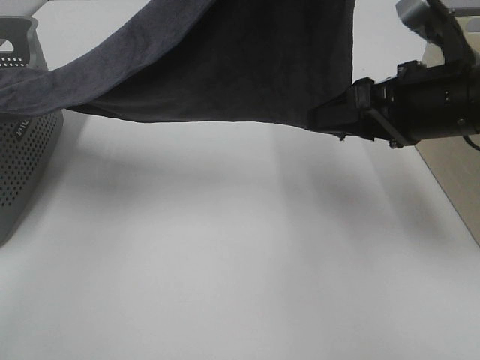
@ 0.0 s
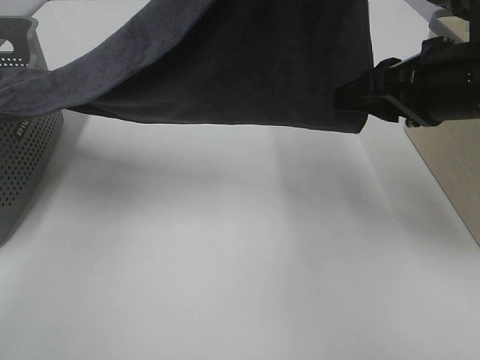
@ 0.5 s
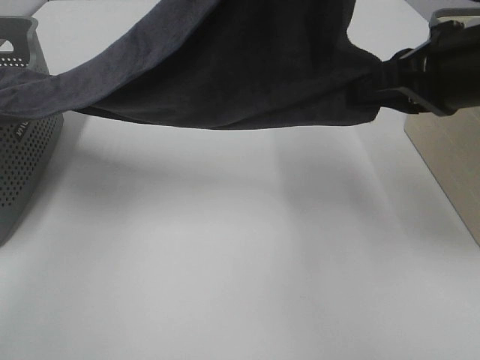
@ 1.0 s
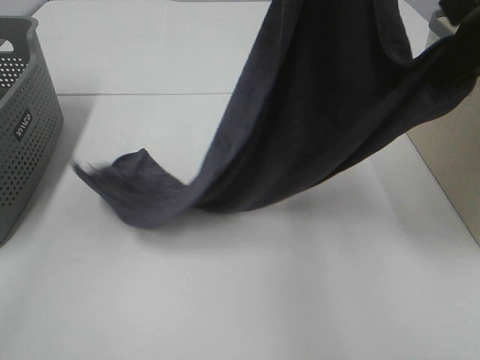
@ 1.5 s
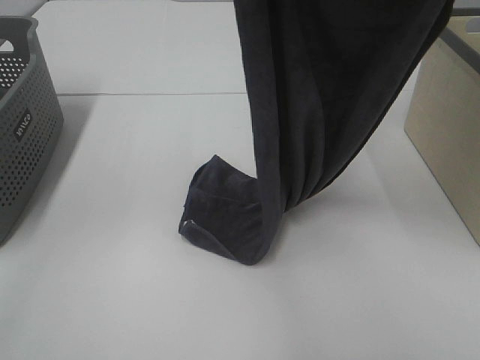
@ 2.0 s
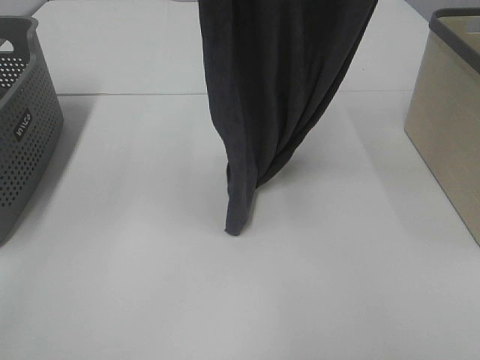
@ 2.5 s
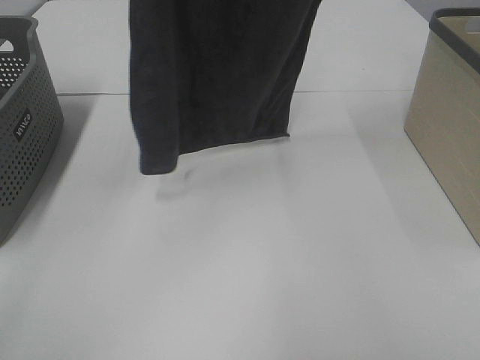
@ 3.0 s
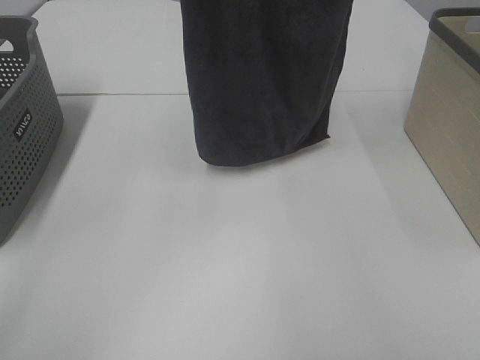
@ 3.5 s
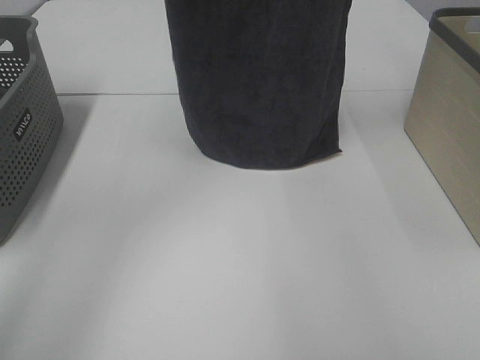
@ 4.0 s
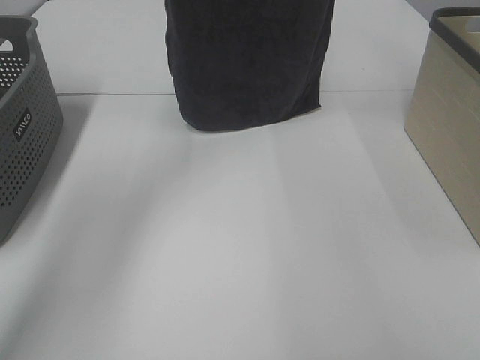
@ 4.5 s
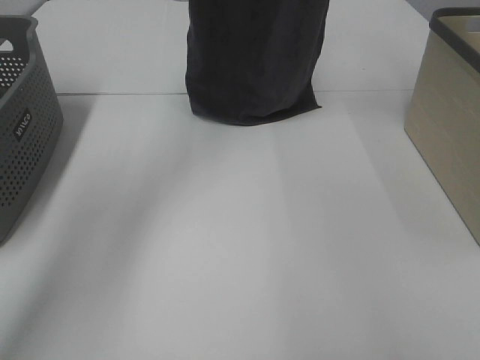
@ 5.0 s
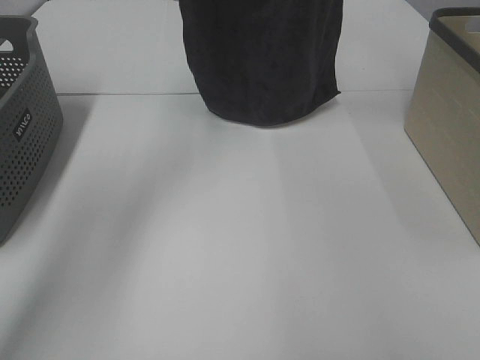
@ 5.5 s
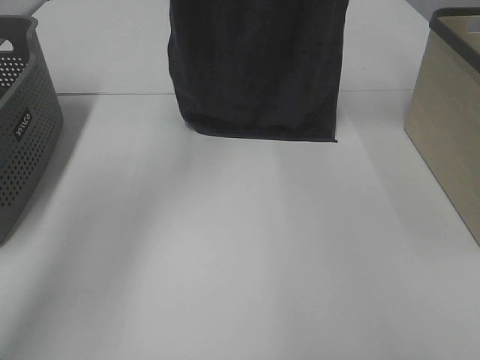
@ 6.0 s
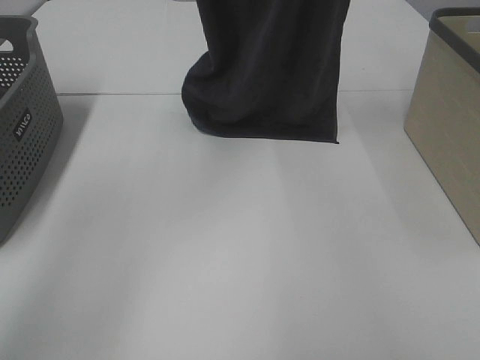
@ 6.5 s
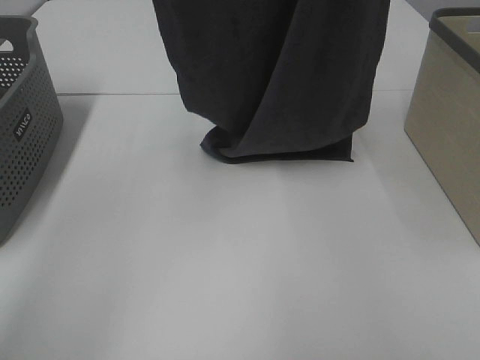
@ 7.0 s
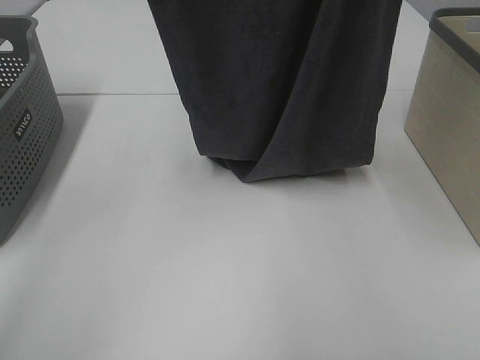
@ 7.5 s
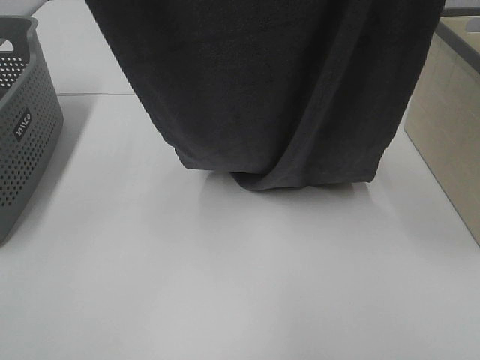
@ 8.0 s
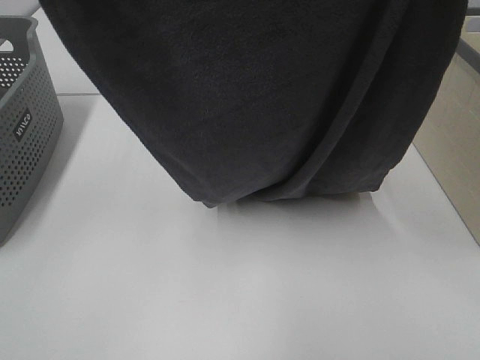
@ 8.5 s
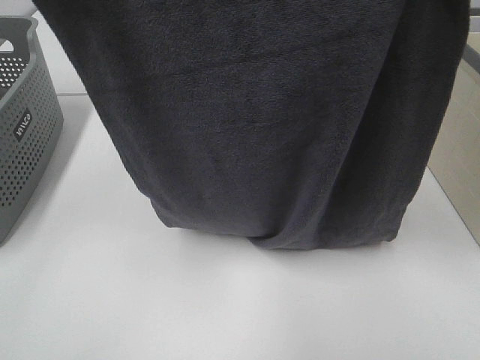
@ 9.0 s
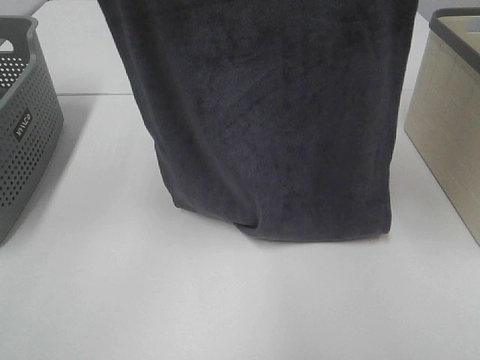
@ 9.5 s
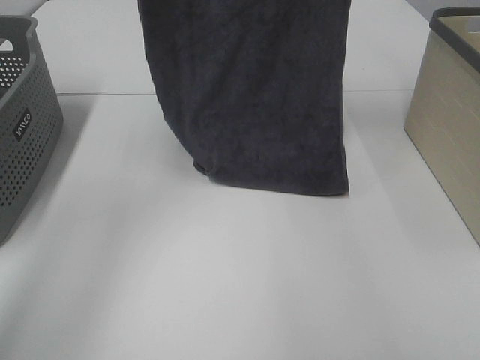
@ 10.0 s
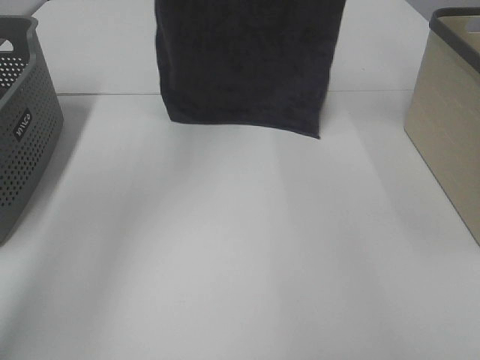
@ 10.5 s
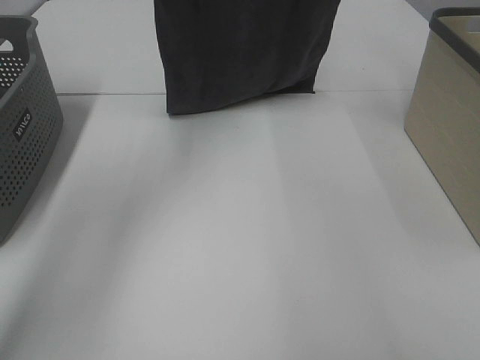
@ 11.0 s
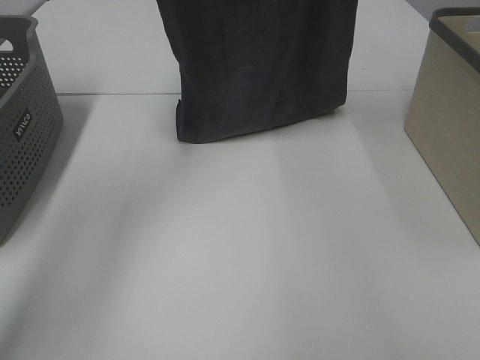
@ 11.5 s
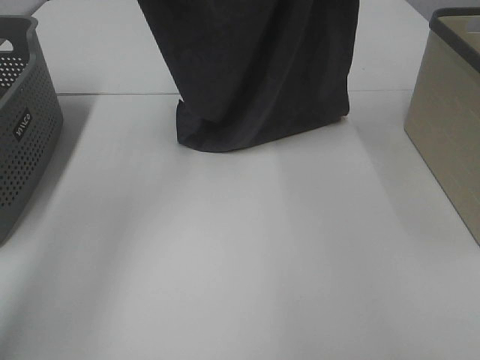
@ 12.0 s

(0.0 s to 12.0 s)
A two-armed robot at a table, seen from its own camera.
Task of the whole recording: Remove the towel and place it.
Step, 0.0 s - 11.0 s: Left hand: spread the grey towel flat on the table.
Step, 0.0 s - 11.0 s: Right hand: spread the grey towel flat on the table.
0.0 s - 2.0 s: The right gripper goes roughly 25 cm upward, and closes its fingers.
2.0 s - 4.0 s: The left gripper is displaced forward and to the left by approximately 15 cm. The right gripper travels forward and upward by about 15 cm.
4.0 s - 6.0 s: The left gripper travels forward by roughly 10 cm.
6.0 s - 8.0 s: The two grippers go roughly 20 cm backward.
8.0 s - 10.0 s: Both grippers move forward, about 20 cm.
10.0 s - 12.0 s: The left gripper moves downward, about 5 cm.

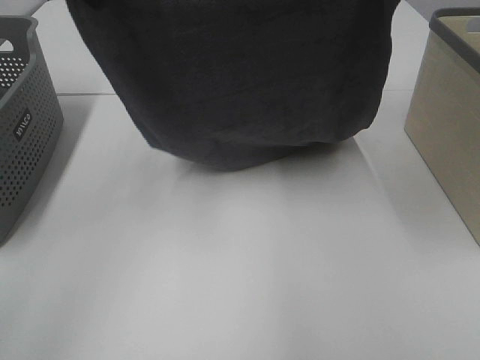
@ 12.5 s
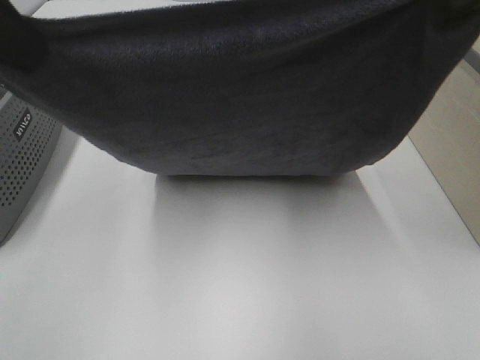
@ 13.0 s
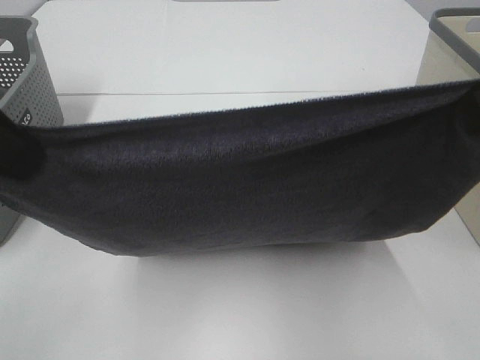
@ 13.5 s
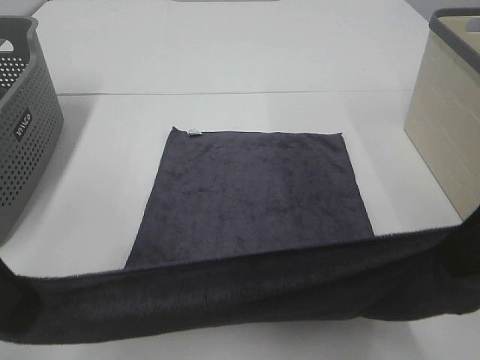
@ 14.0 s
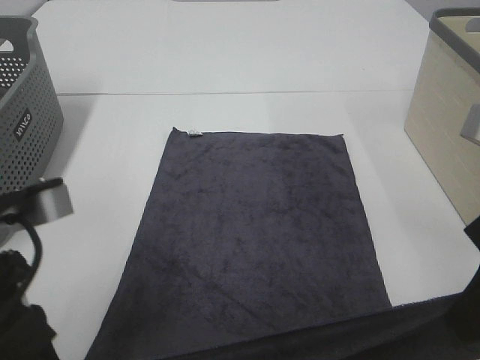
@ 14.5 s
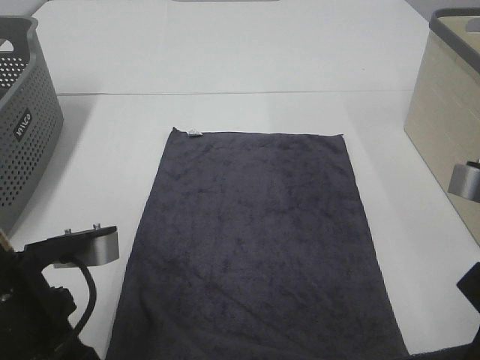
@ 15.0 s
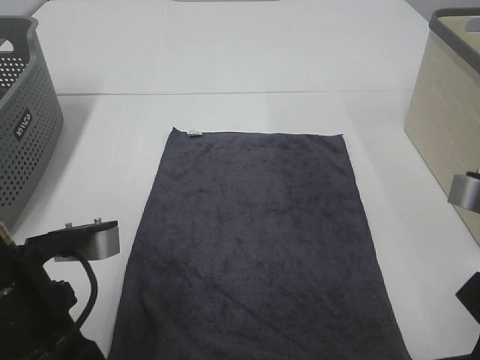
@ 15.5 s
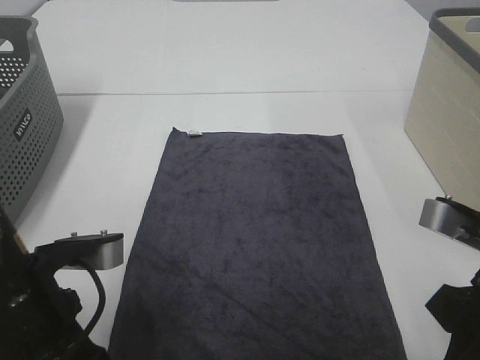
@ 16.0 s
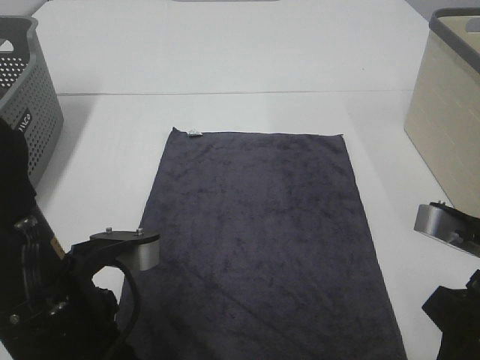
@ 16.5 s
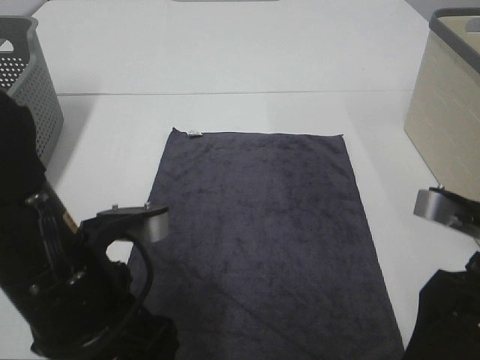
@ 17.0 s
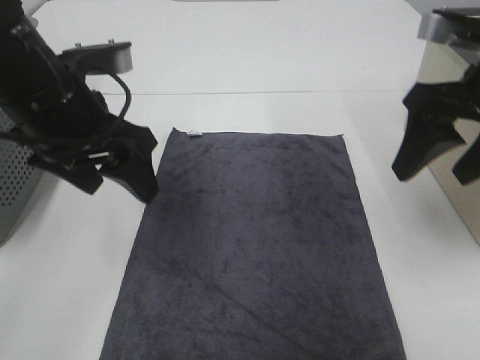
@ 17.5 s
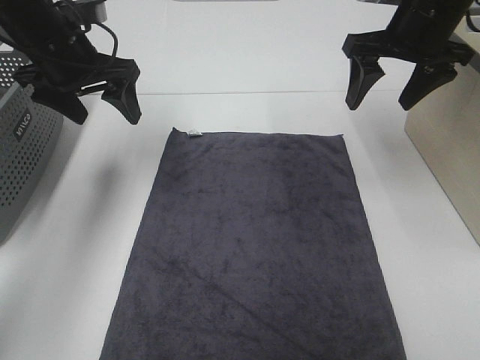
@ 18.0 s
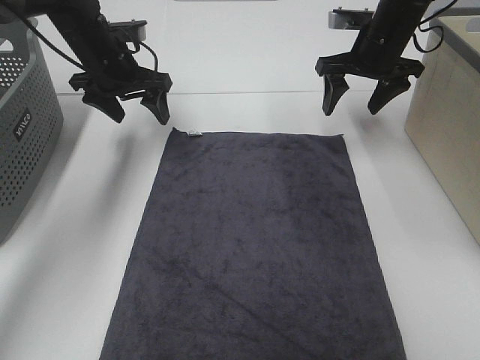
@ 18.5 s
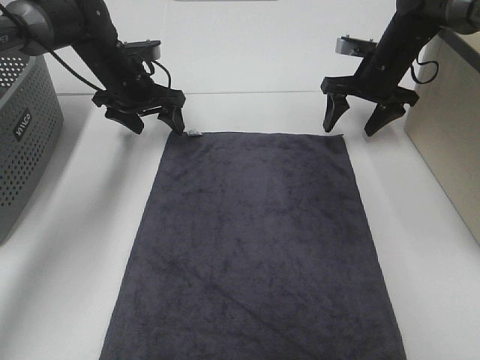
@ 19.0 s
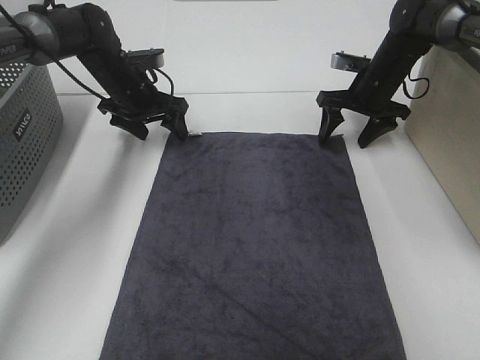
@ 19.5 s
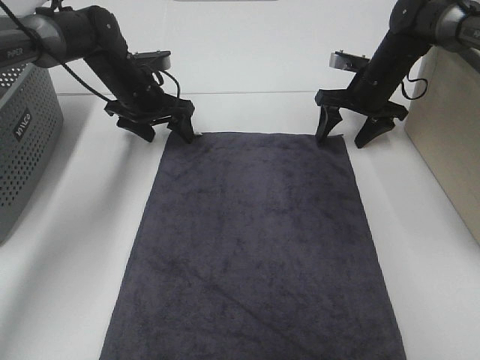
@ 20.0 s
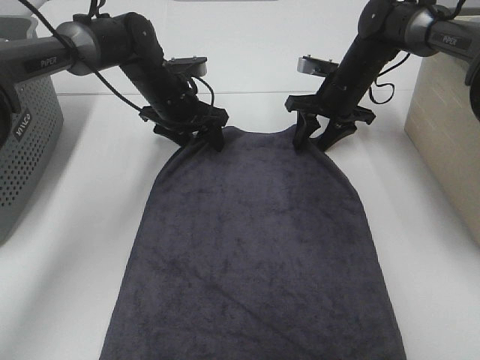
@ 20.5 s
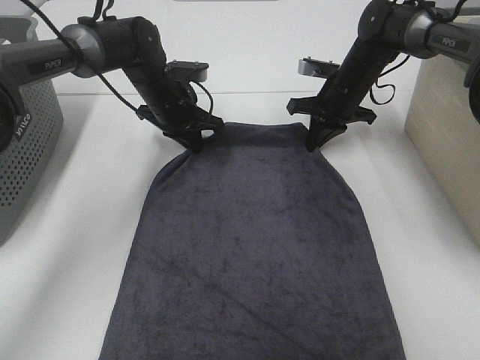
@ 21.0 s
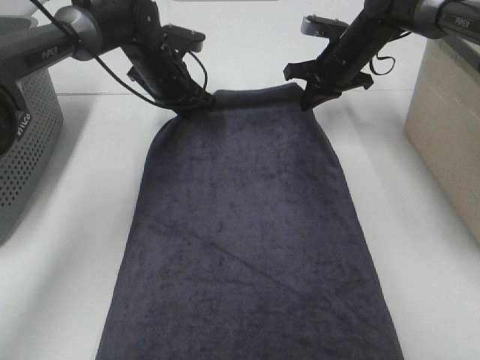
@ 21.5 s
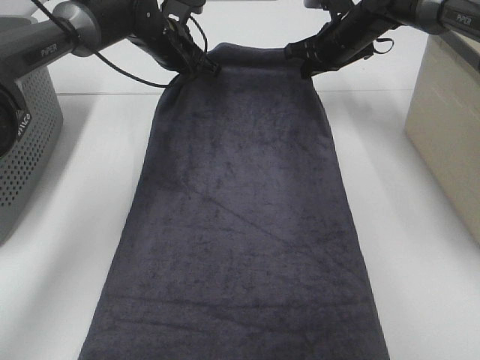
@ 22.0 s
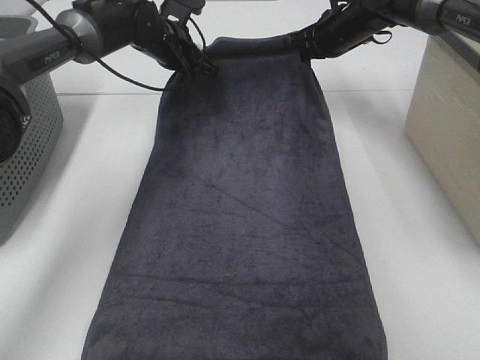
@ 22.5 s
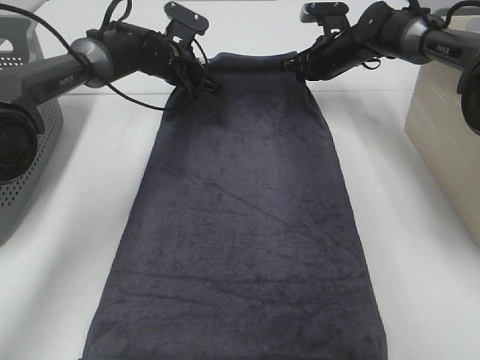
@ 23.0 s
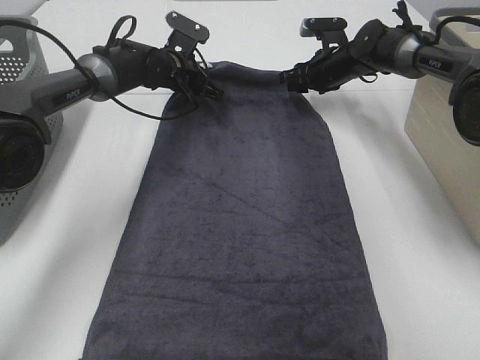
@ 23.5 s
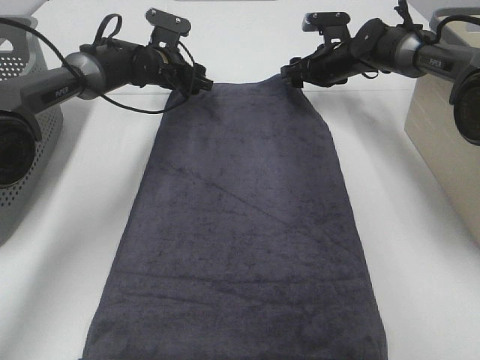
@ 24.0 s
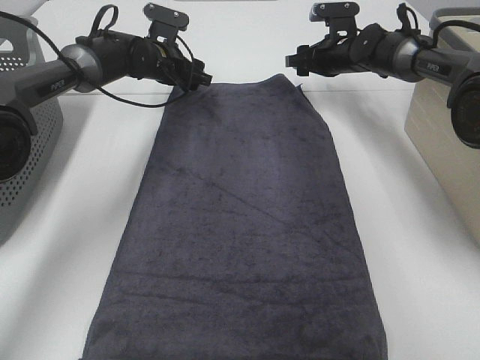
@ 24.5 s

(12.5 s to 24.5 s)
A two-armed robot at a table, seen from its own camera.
Task of the whole recording: Remove the towel and place it.
Step, 12.5 s - 17.0 s: Left hand:adjust the gray towel.
Step, 12.5 s - 19.5 s: Right hand:adjust the gray towel.
12.5 s - 14.5 s: Both grippers travel together backward and downward, some 25 cm.
14.5 s - 16.5 s: The right gripper moves downward, roughly 5 cm. Meanwhile the left gripper changes place by about 5 cm.
16.5 s - 18.5 s: Both grippers travel together forward, about 35 cm. The right gripper opens up. Meanwhile the left gripper opens.
18.5 s - 20.5 s: The left gripper moves to the right and downward, about 10 cm; the right gripper shifts approximately 10 cm downward.
20.5 s - 22.5 s: The right gripper shifts approximately 10 cm upward and forward, and closes; the left gripper moves forward and upward, roughly 10 cm, and closes its fingers.
22.5 s - 24.5 s: The left gripper ends up about 5 cm from where it was, and opens, while the right gripper heads downward, covering some 5 cm, and opens.

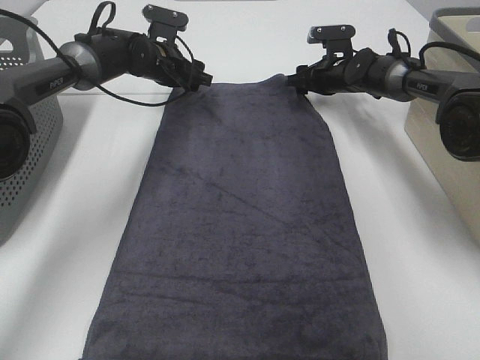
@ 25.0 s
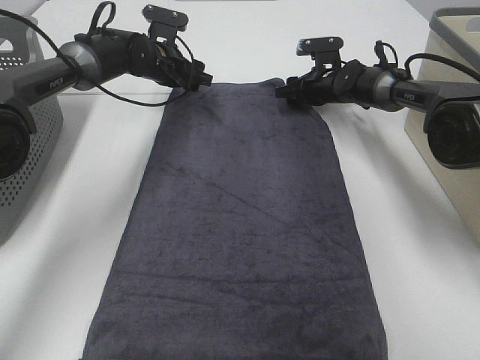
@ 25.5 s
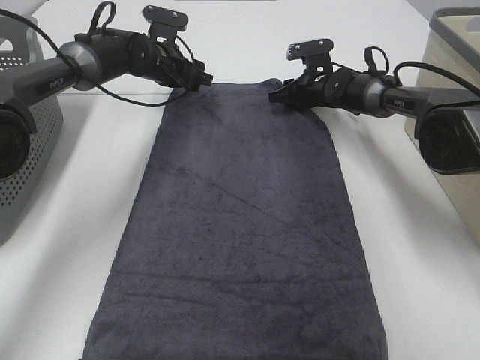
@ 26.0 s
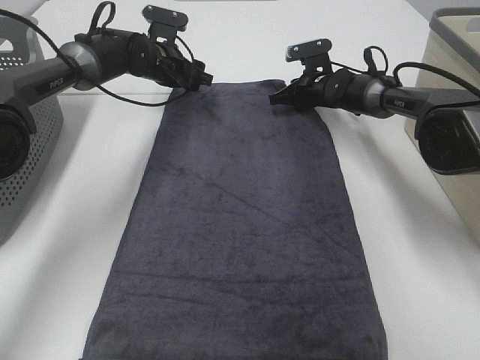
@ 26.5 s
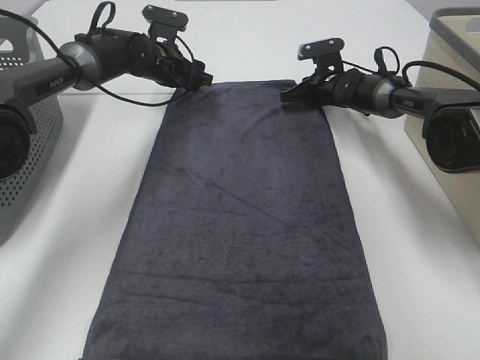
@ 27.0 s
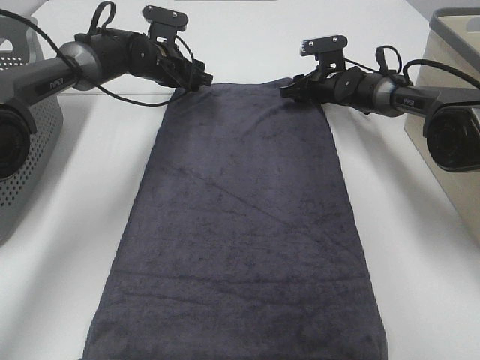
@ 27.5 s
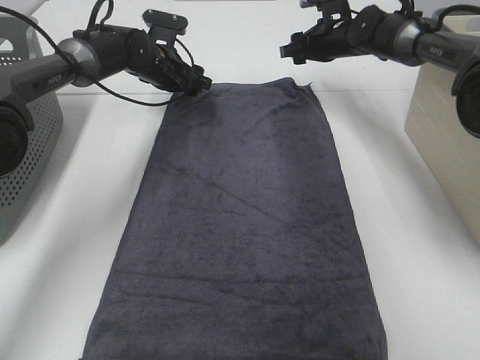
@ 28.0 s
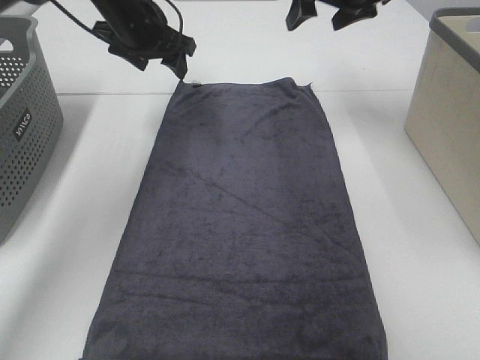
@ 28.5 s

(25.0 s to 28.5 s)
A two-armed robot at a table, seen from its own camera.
Task of the whole recording: Remove the towel and place it.
25.0 s - 27.0 s: The right gripper closes up.
27.0 s - 28.5 s: The right gripper heads upward, covering roughly 25 cm, and opens up; the left gripper moves upward and backward, roughly 15 cm.
